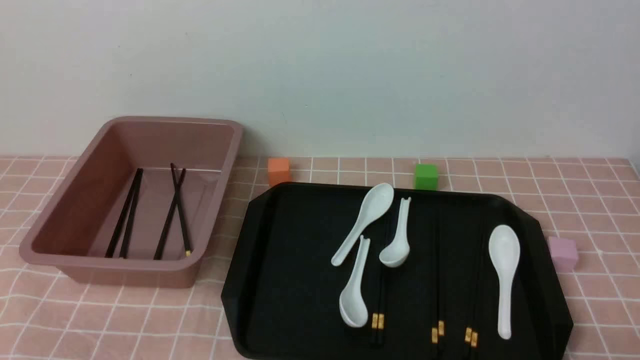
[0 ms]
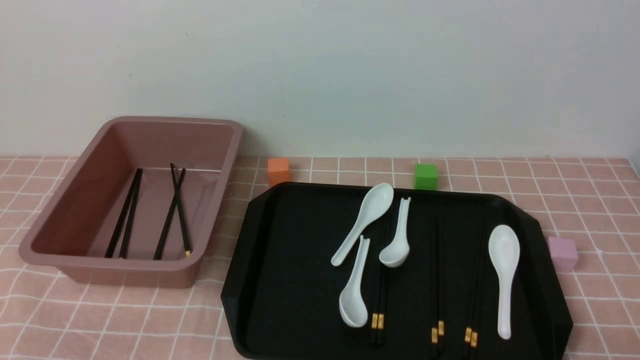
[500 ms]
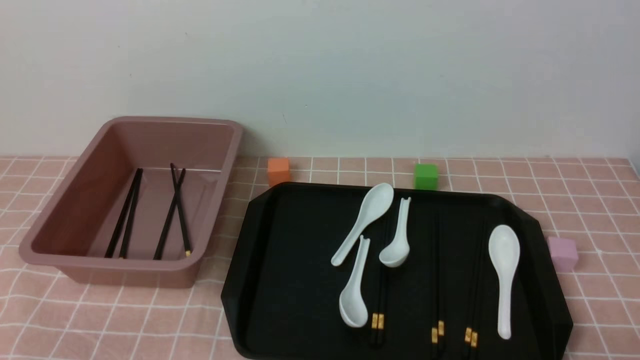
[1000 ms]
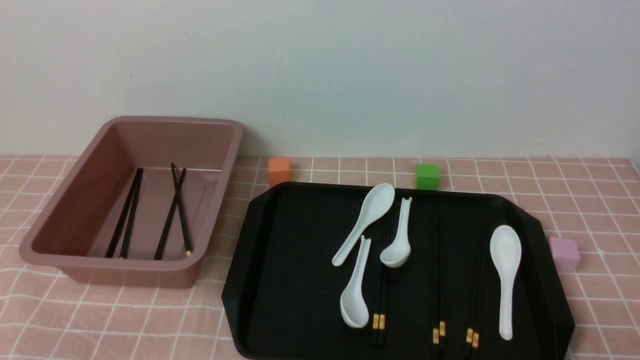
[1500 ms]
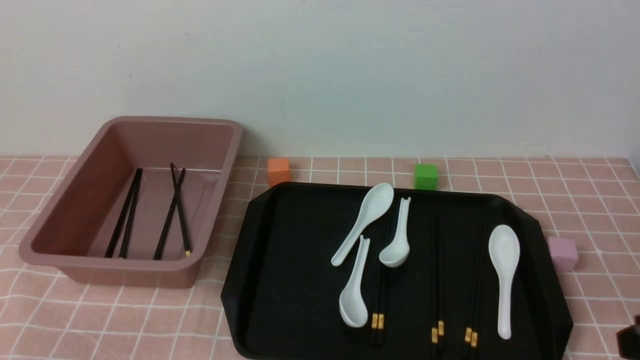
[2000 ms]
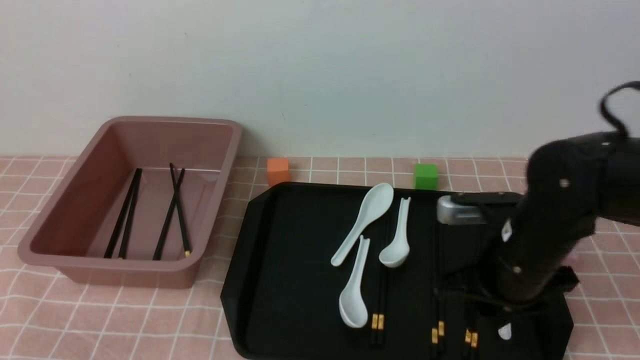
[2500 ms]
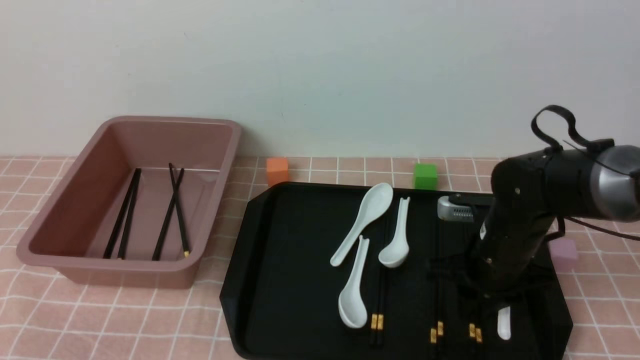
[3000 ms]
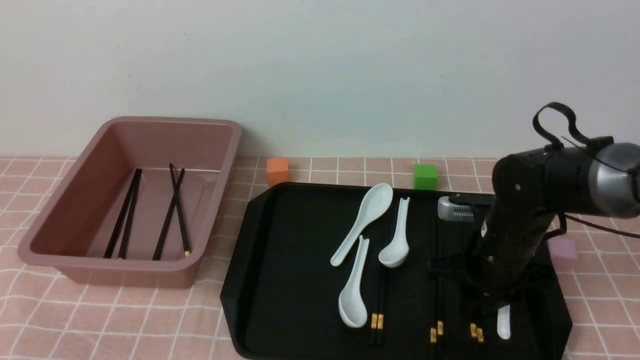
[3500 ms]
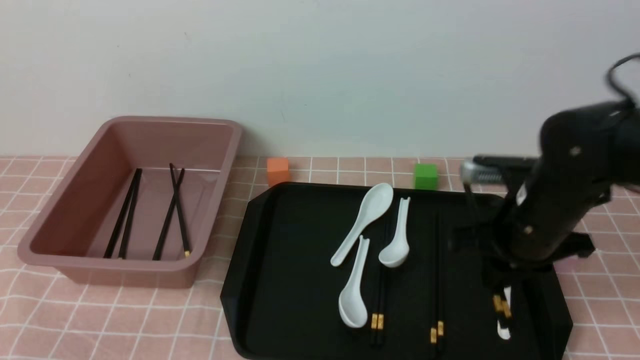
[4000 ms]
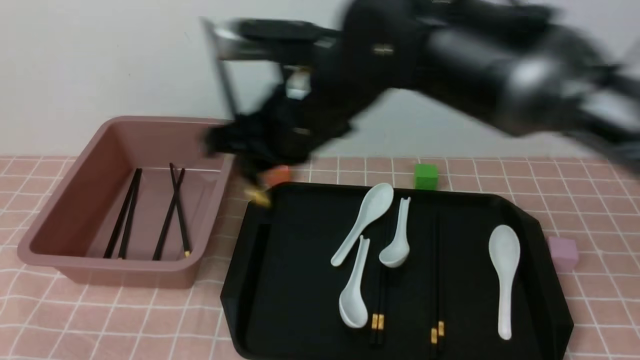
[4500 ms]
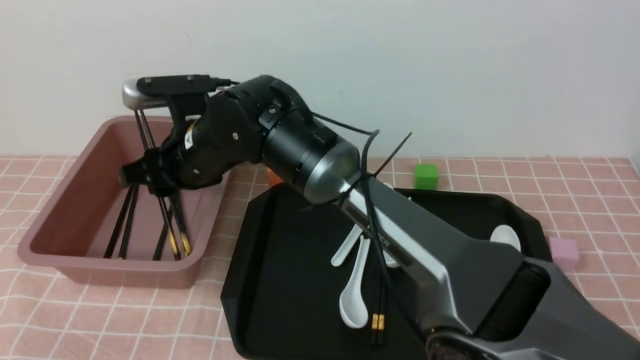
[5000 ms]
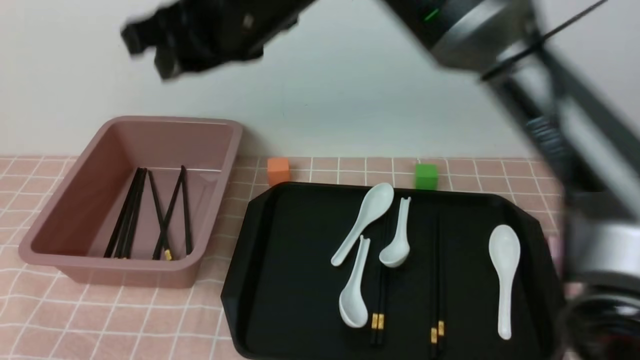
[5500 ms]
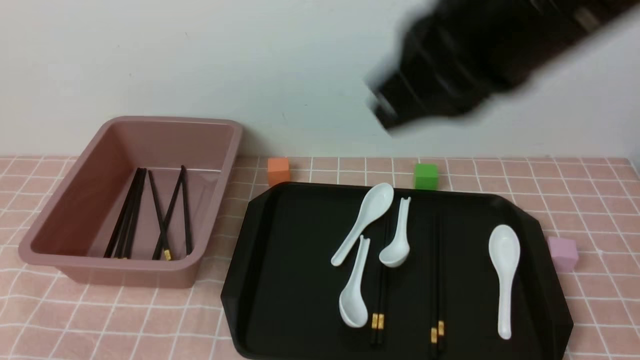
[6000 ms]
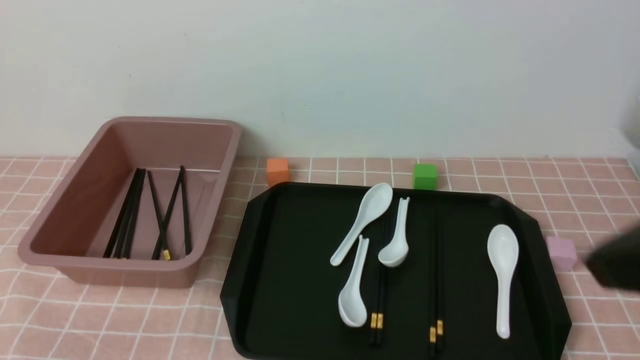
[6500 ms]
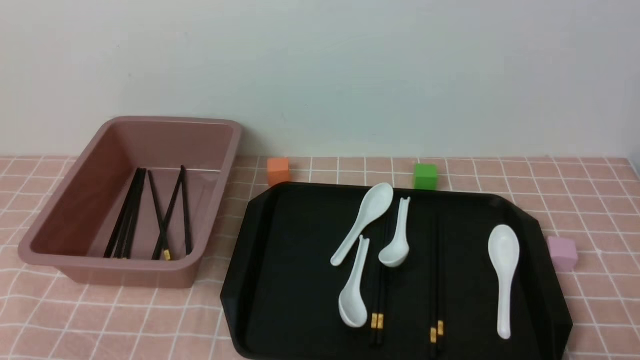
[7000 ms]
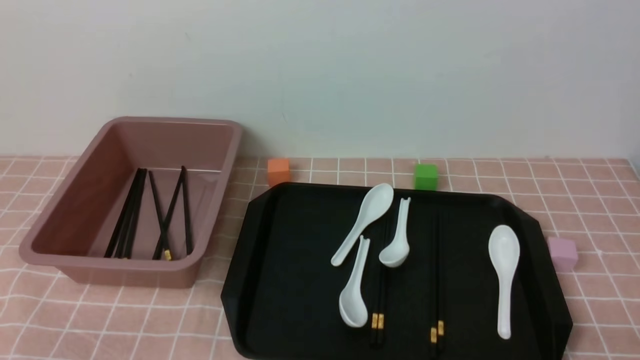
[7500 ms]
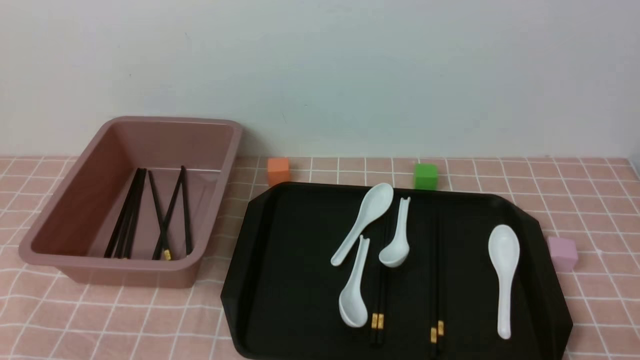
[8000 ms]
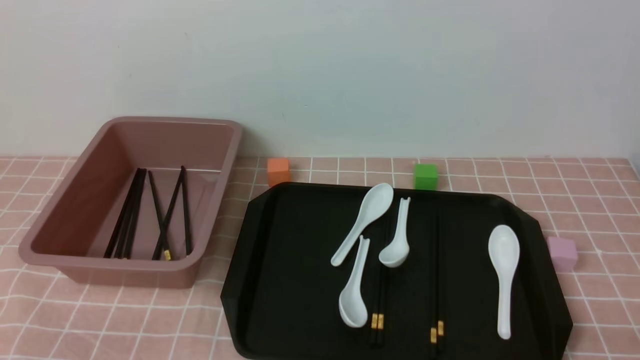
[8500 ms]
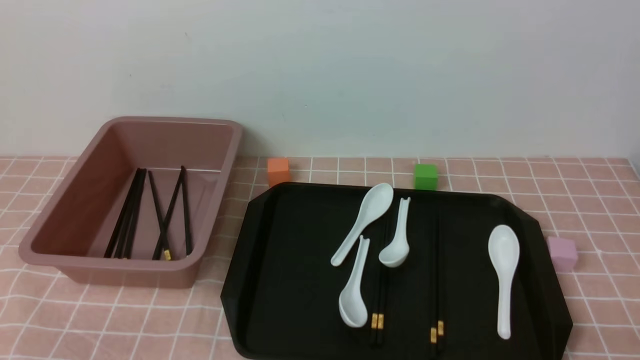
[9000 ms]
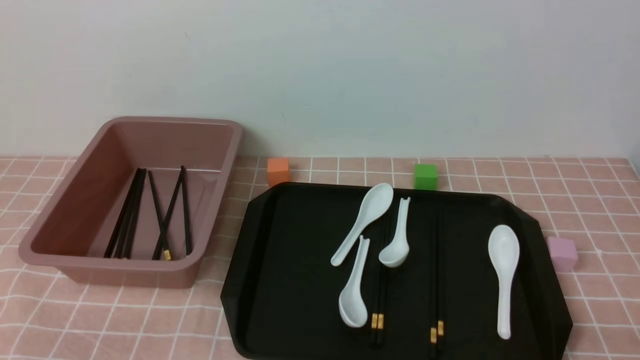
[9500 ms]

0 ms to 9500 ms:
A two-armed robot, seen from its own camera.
Step, 0 ms to 4000 ms: use the right arm to grab a pair of chopsticks.
Step, 4500 ms to 5500 ms: use the right arm to put the chopsticks into the lunch box.
2000 ms to 4000 ms: The right gripper goes approximately 20 cm forward and to the left.
4000 ms to 5500 ms: The right gripper is displaced upward and to the left by about 30 cm.
5500 ms to 7500 ms: The right gripper shifts about 50 cm to the right, downward and backward, and closes up.
7500 ms to 9500 ms: Both grippers stay put.
